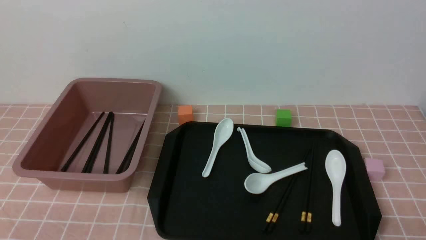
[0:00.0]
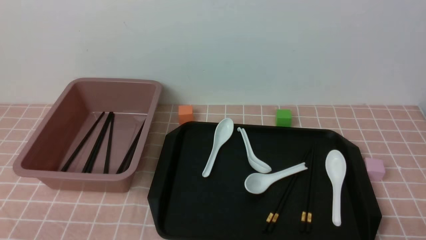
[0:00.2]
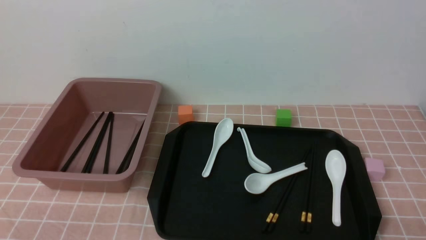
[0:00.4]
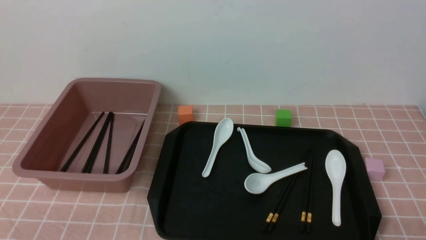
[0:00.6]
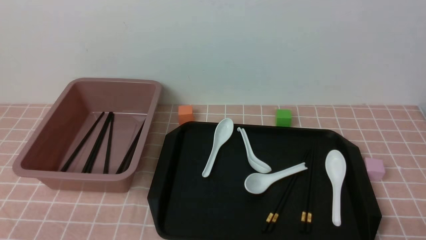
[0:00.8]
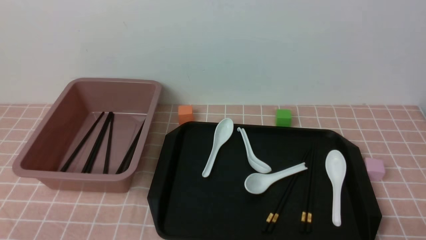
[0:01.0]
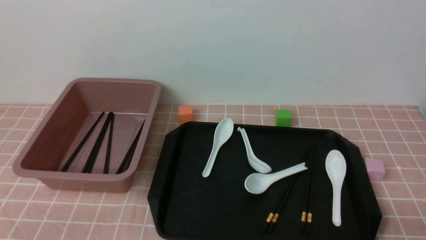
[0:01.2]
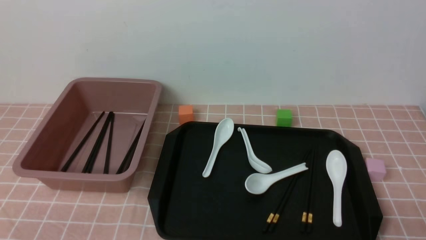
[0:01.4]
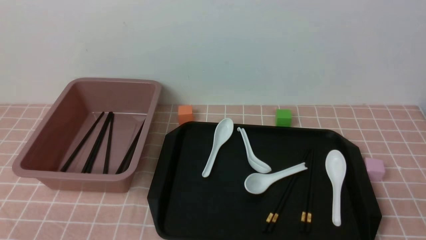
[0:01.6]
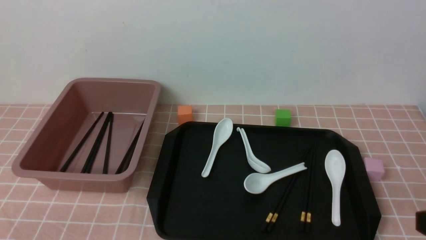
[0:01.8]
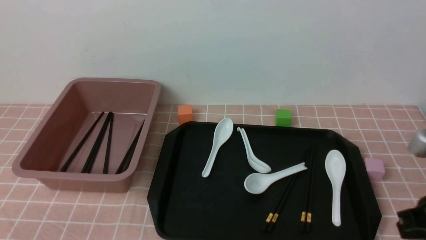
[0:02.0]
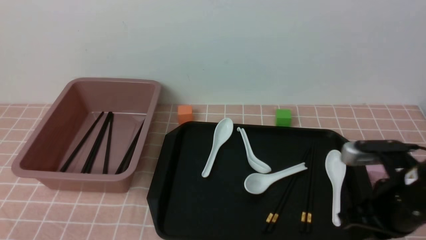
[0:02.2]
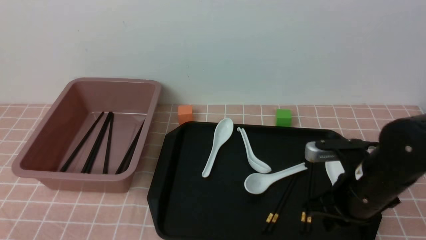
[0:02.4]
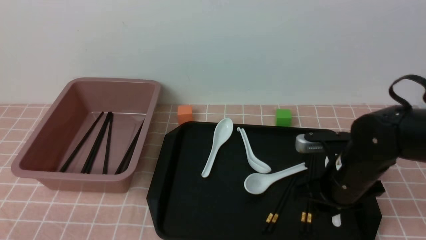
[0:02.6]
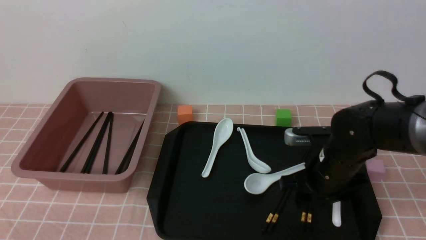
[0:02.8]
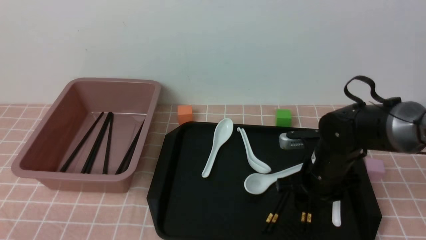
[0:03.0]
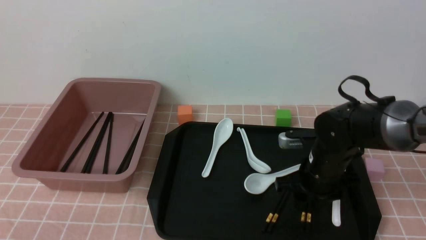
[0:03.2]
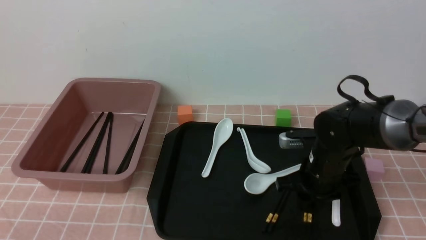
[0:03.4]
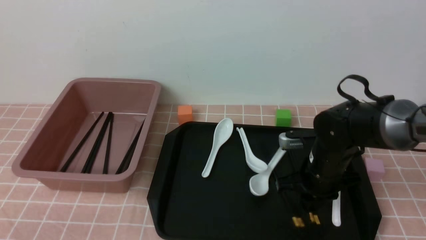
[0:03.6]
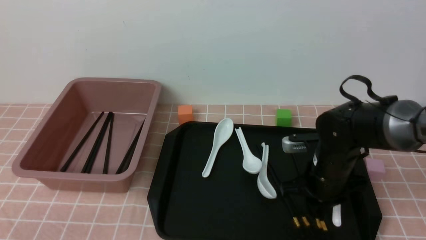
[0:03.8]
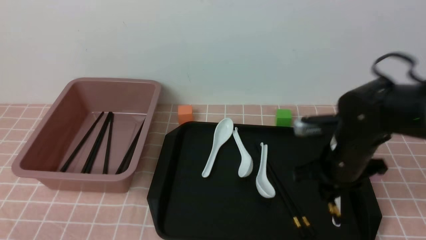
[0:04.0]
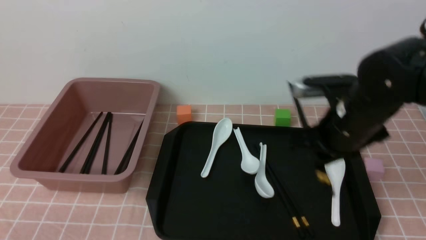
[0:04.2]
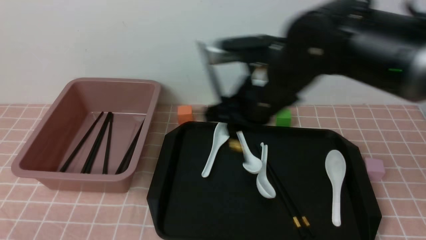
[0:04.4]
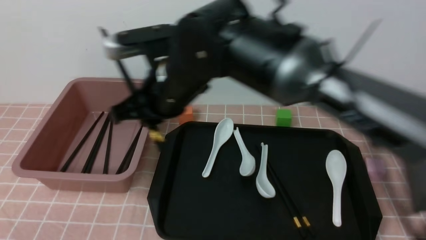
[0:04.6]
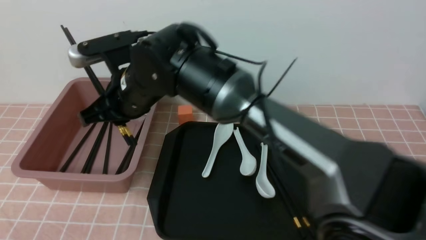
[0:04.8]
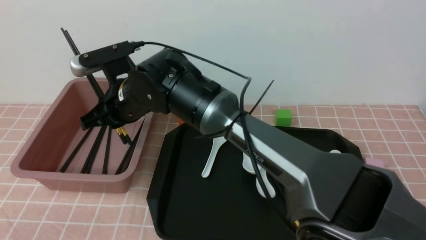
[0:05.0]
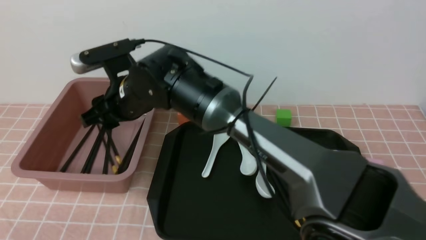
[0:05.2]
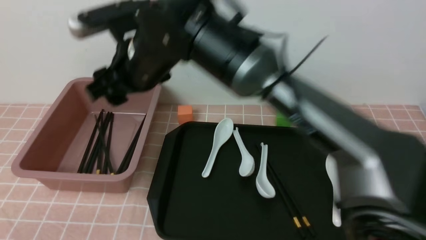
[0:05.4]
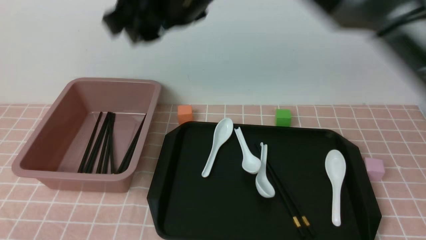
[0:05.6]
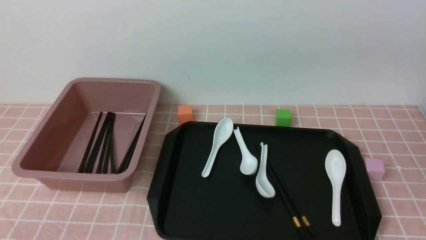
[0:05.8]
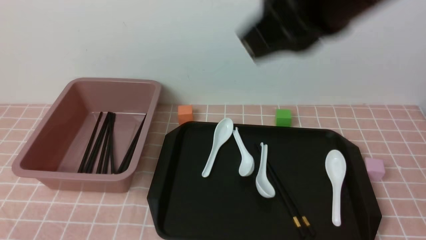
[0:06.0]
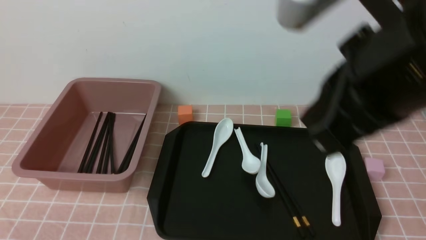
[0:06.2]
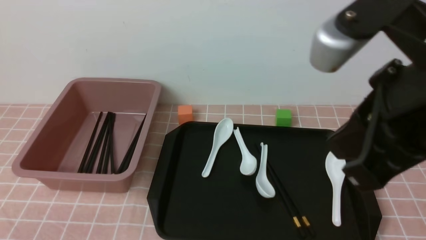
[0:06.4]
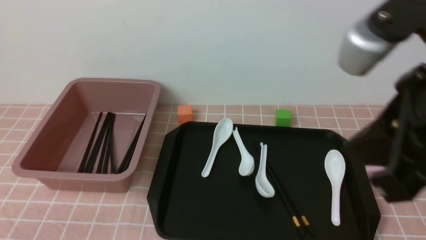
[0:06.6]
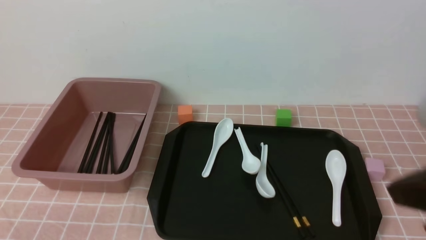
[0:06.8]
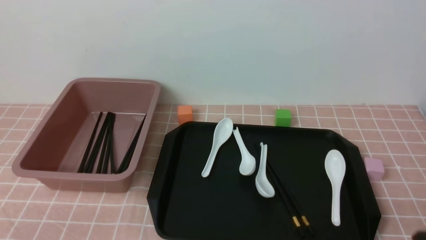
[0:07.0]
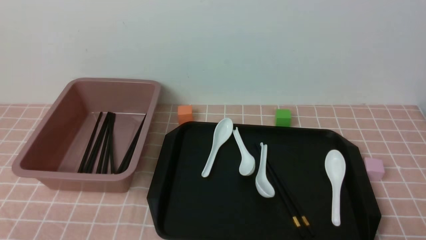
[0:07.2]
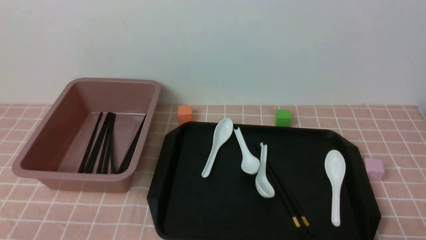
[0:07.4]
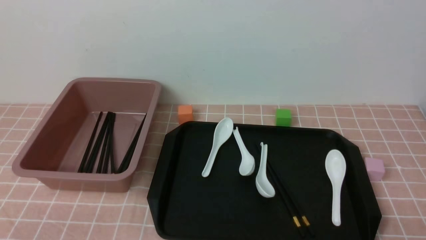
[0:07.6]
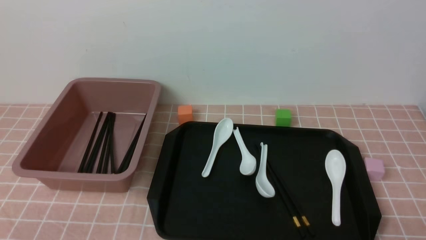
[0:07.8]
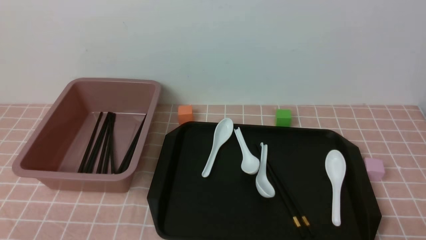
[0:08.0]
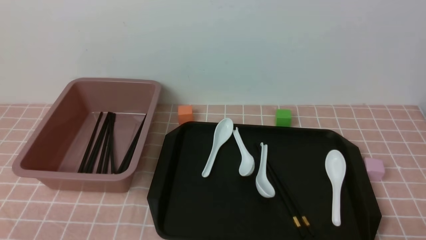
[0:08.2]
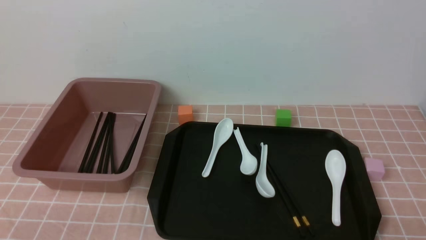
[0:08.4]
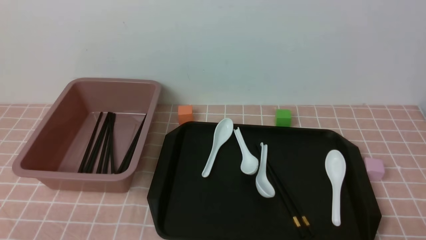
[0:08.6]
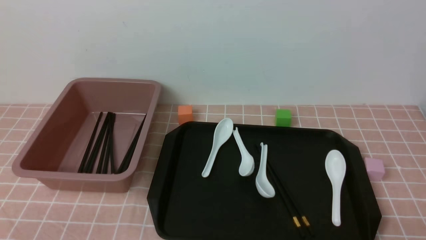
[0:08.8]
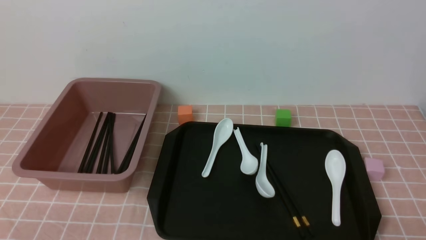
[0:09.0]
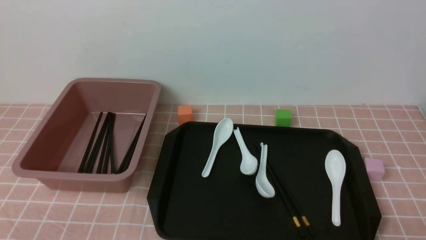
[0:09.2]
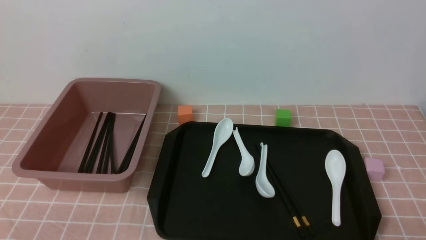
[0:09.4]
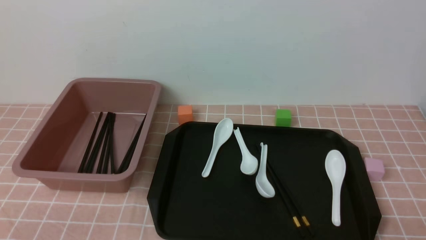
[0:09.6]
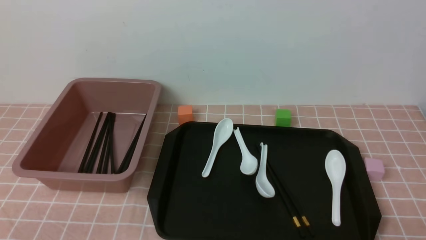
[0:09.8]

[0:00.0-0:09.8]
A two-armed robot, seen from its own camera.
Step, 0:00.0 to 0:04.0: use the right arm to grab a pair of chopsticks.
Step, 0:04.4 to 0:05.6: use the right arm to put the chopsticks into the lunch box.
0:01.4 to 0:02.8: The right gripper goes roughly 30 cm forward and to the left, and closes, then reopens.
0:02.8 to 0:04.2: The left gripper opens; the right gripper moves upward, approximately 10 cm, and closes.
0:04.2 to 0:05.6: The right gripper travels upward and to the left by some 25 cm, and opens up.
0:05.6 to 0:07.0: The right gripper travels to the right, backward and downward by some 40 cm, and closes its fingers.
0:07.0 to 0:08.4: The right gripper heads downward, covering about 10 cm.
0:08.4 to 0:09.8: Neither gripper changes place.
